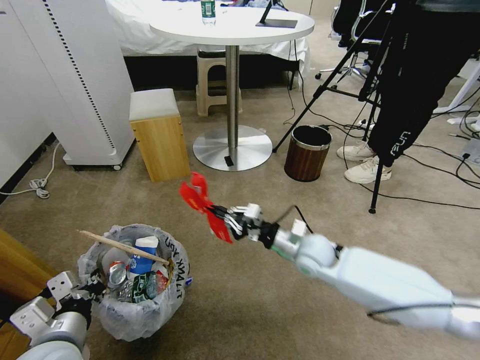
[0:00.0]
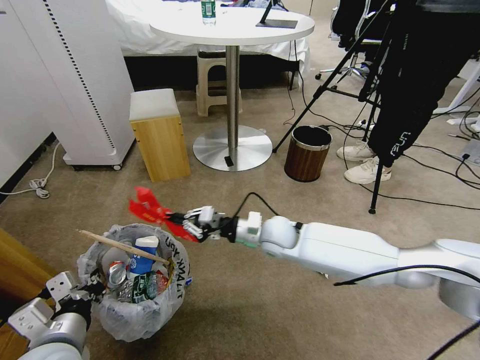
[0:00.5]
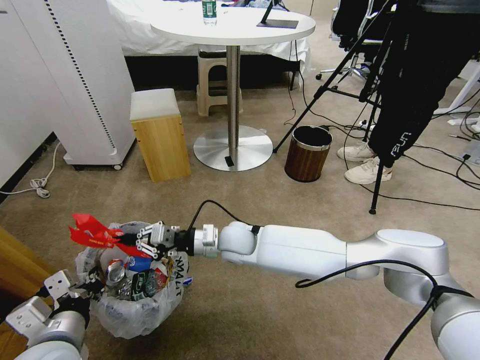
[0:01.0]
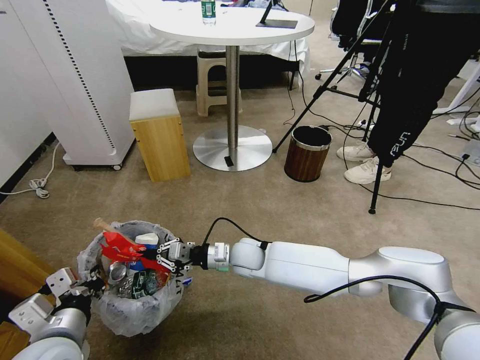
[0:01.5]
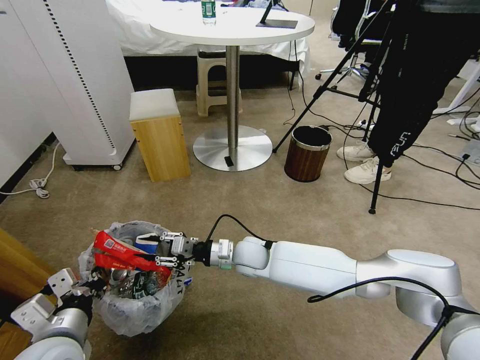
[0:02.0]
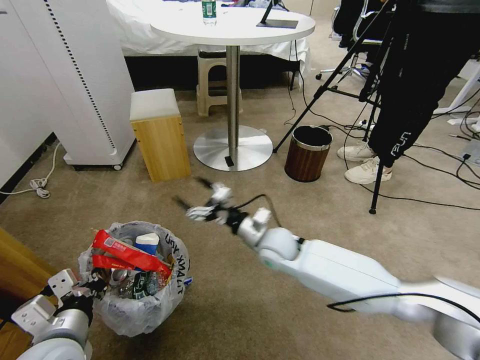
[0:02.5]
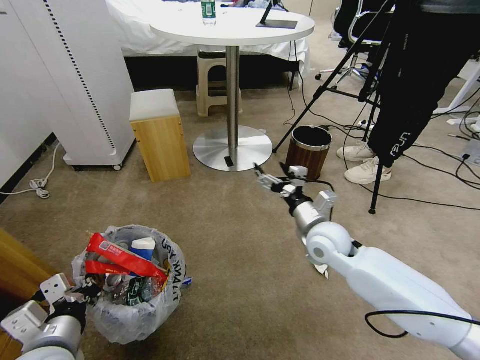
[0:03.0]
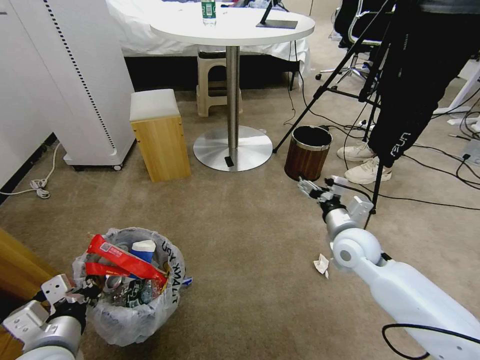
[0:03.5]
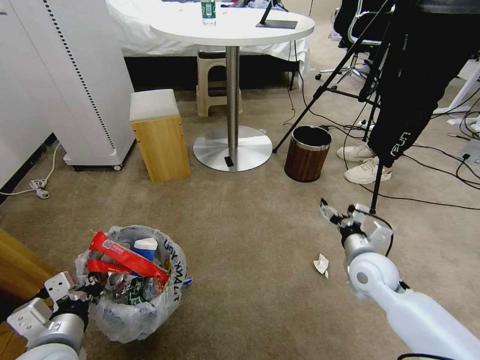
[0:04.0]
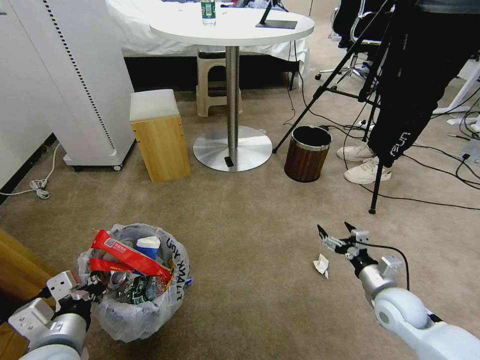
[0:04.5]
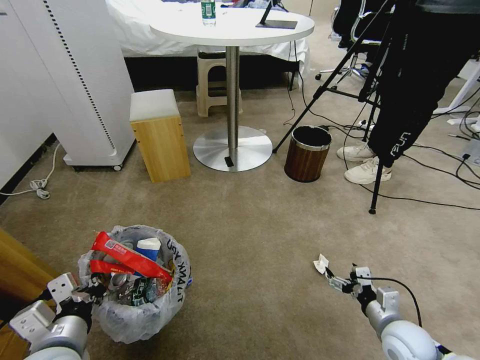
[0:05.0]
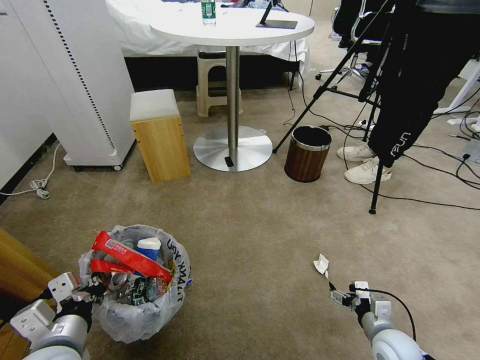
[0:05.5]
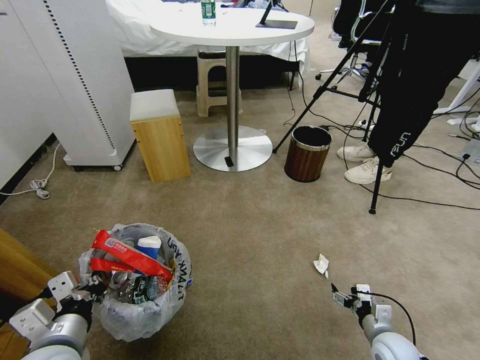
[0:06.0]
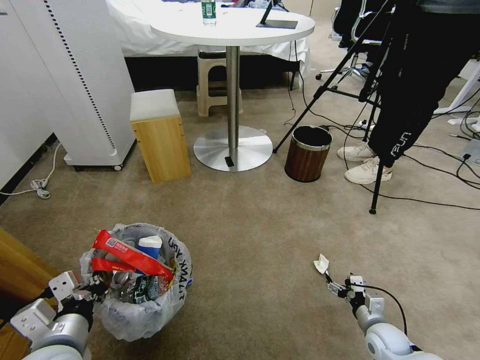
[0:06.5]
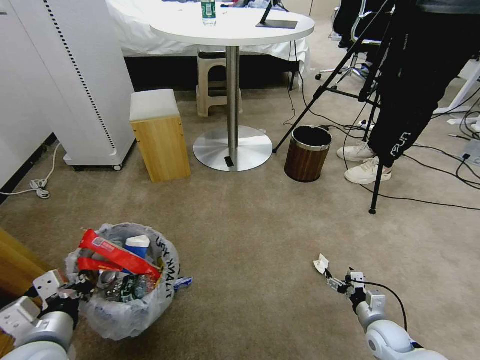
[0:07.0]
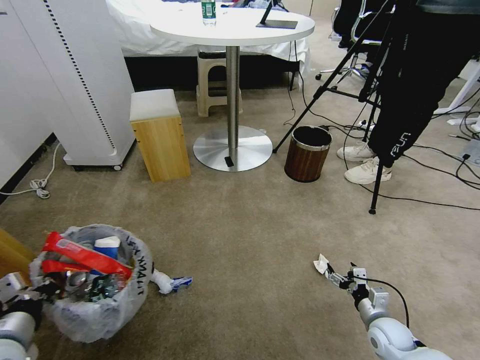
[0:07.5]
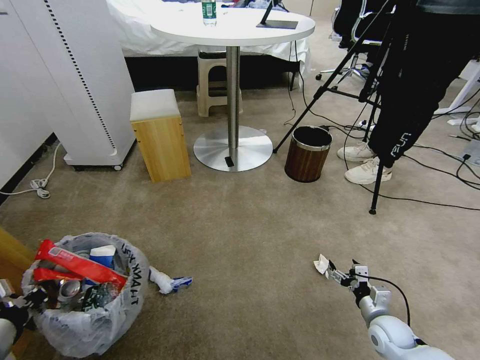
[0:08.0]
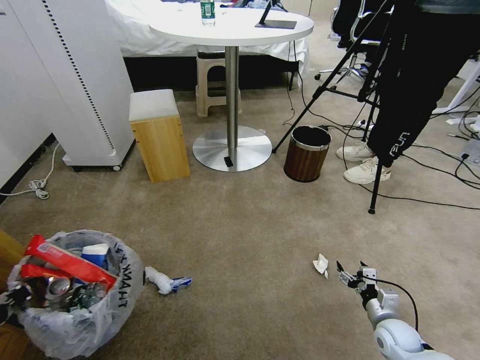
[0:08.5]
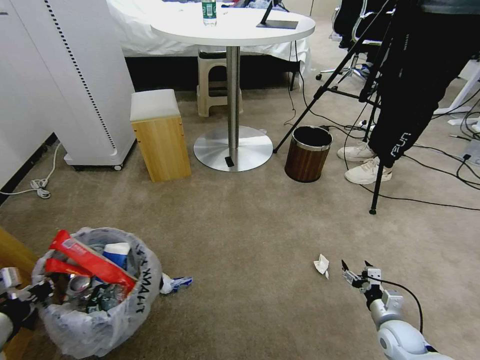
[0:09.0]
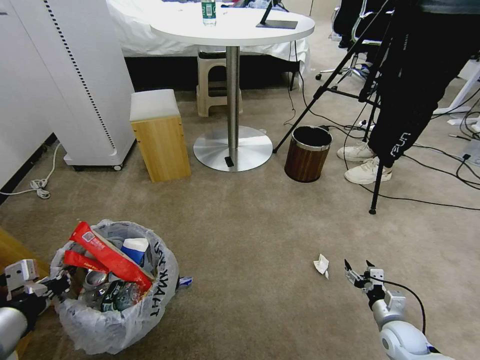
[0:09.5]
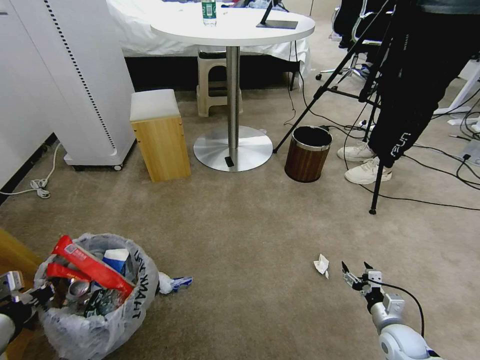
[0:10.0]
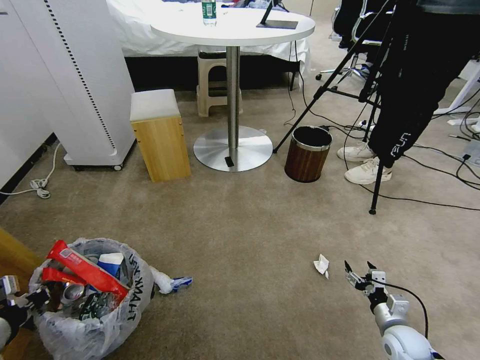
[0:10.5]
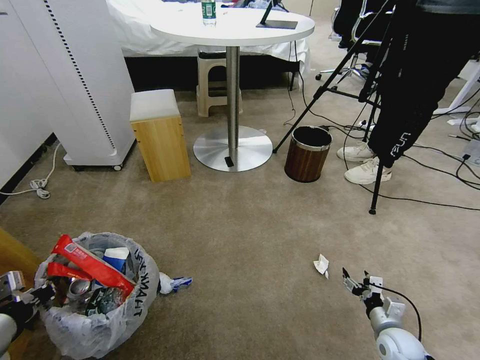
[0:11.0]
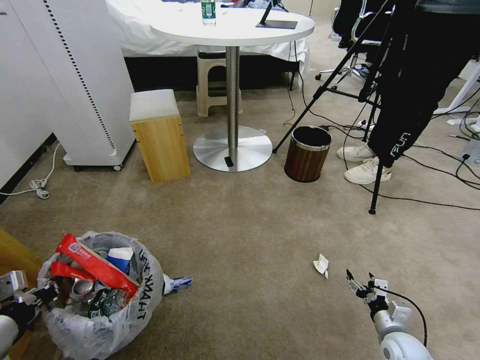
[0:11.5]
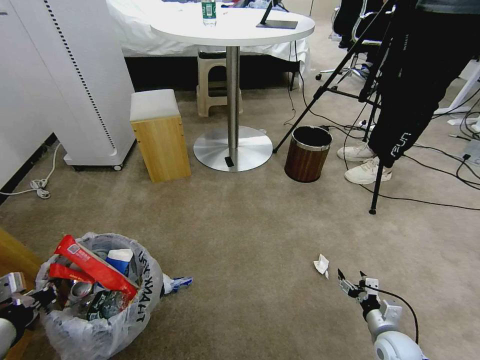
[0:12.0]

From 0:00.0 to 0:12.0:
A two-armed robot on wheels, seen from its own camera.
Task of the whole recording: Pick up the trash bin and place the garbage on the floor into it.
From 0:00.0 to 0:02.0: The right gripper heads to the left, covering some 15 cm, and opens.
From 0:02.0 to 0:04.0: The right gripper shifts some 25 cm to the right, and opens.
From 0:04.0 to 0:06.0: The right gripper shifts some 25 cm downward, backward and to the right.
From 0:06.0 to 0:08.0: The left gripper goes approximately 10 cm to the left.
From 0:08.0 to 0:12.0: The grippers stay close to where they were, moving slightly.

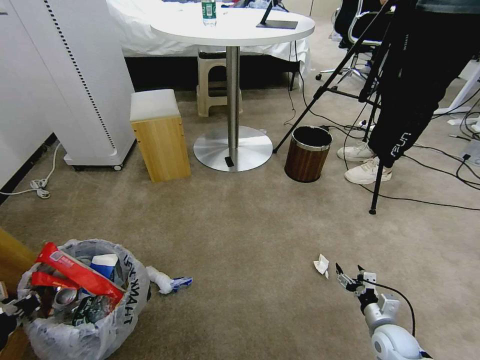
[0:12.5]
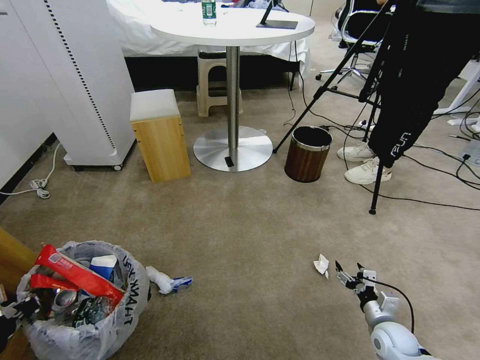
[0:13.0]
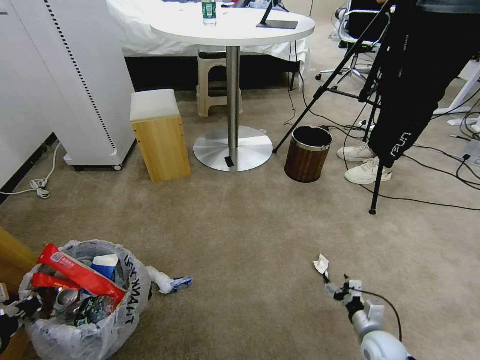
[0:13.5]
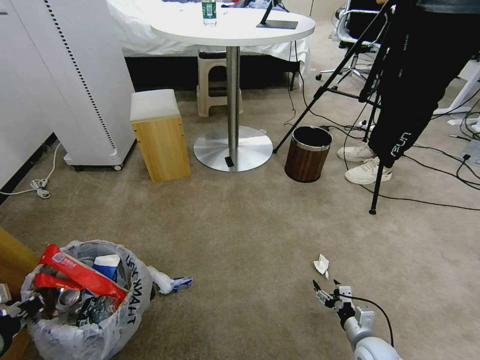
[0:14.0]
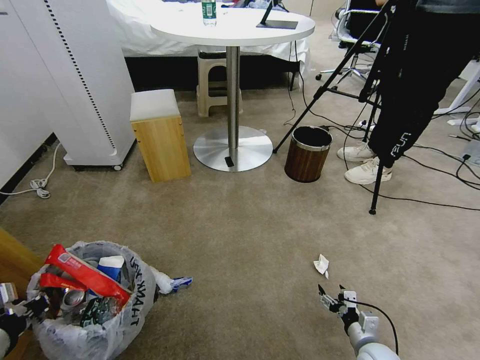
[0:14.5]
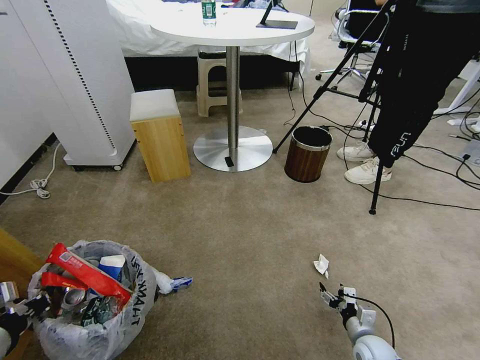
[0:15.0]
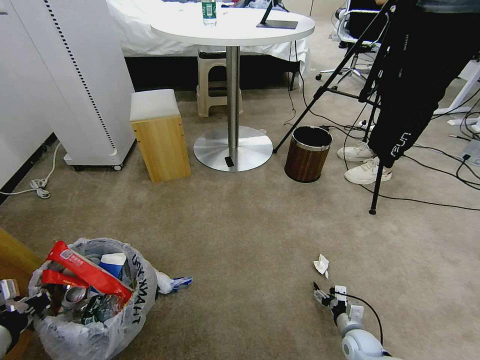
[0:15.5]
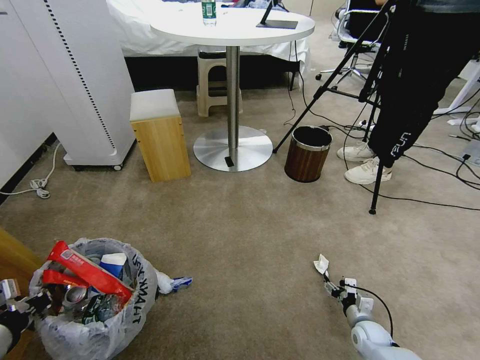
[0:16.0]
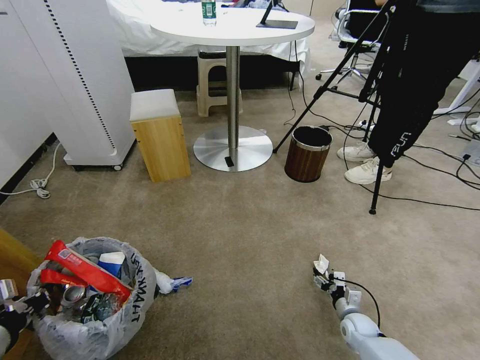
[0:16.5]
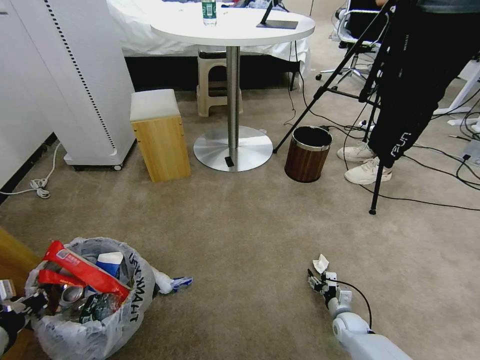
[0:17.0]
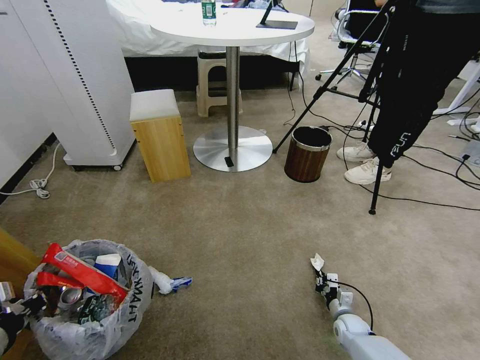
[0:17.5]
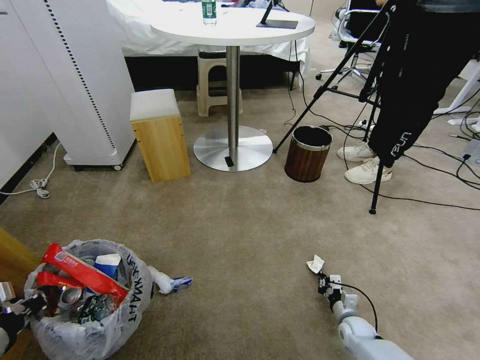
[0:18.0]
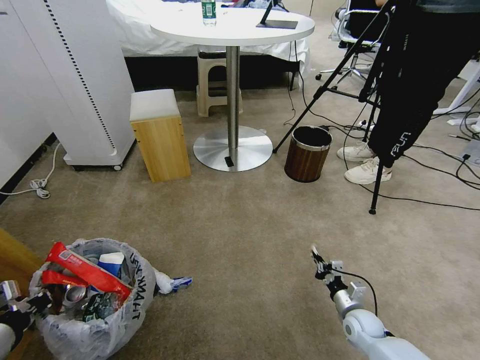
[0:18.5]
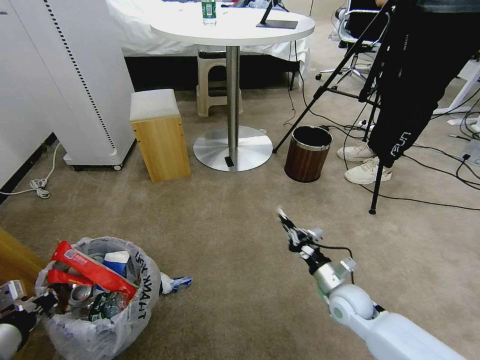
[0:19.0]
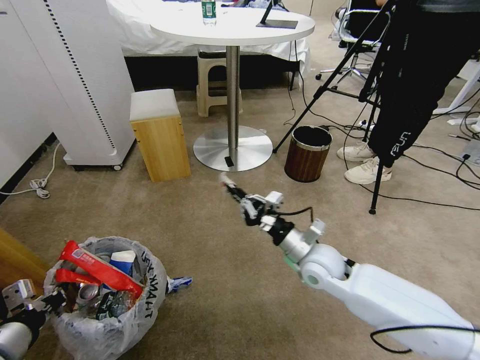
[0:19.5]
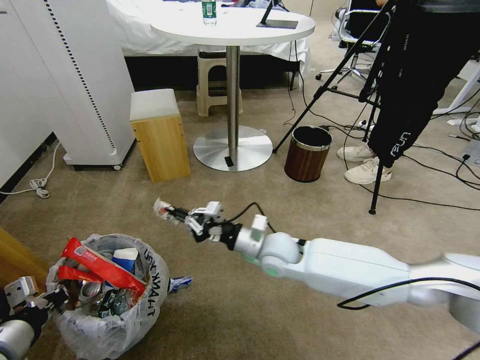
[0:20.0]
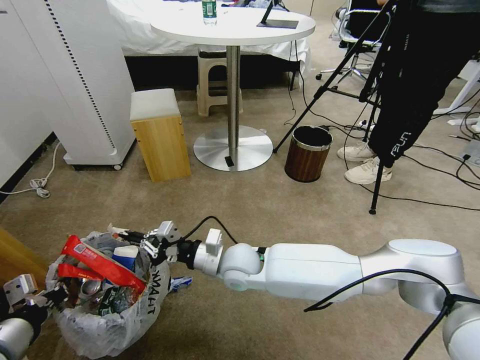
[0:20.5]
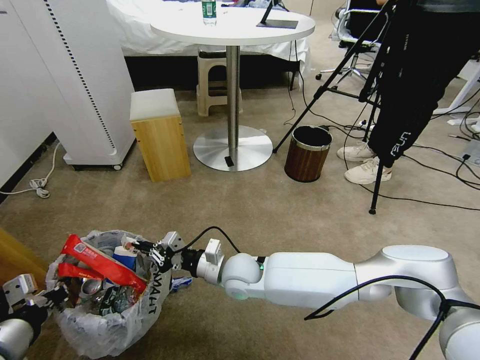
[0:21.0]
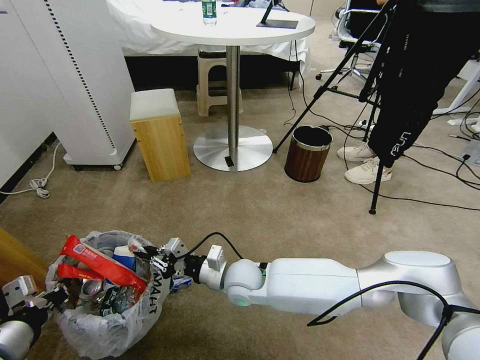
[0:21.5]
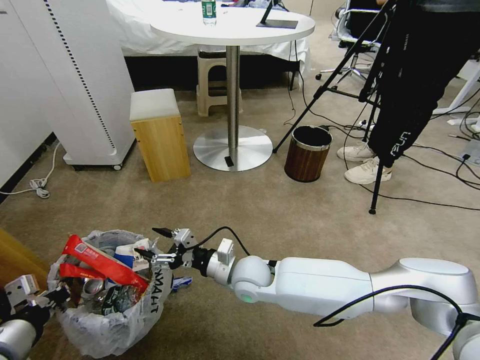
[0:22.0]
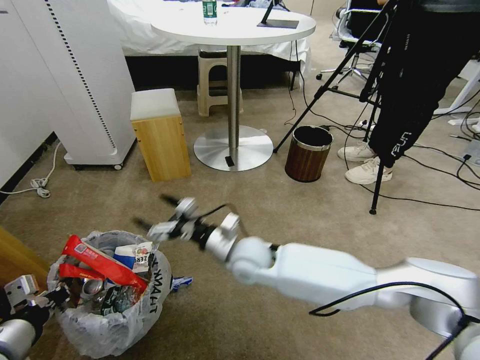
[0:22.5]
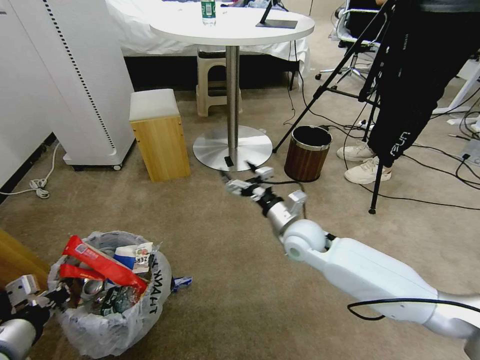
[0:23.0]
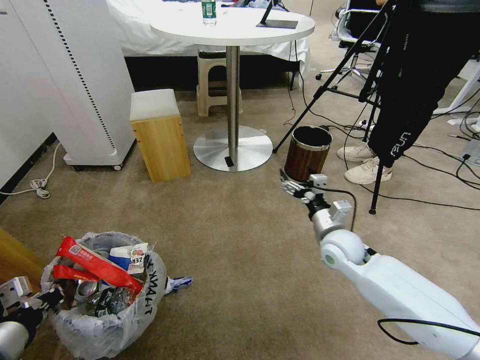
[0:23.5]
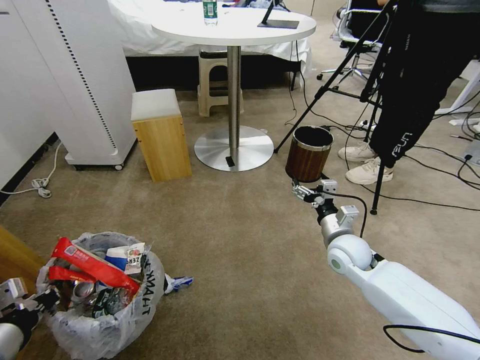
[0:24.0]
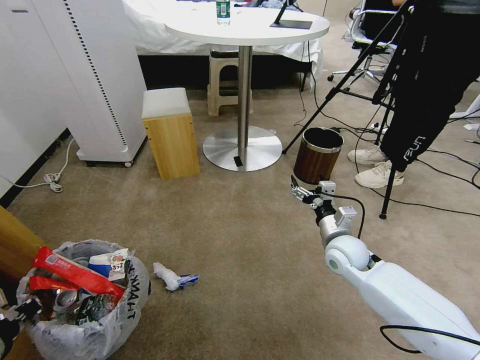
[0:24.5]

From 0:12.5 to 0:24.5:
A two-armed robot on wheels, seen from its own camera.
Task of the whole recording: Pick up the trash bin and place the garbage on the floor into it.
From 0:12.5 to 0:14.5: The right gripper shifts by roughly 5 cm.
From 0:14.5 to 0:16.5: The right gripper is displaced forward by roughly 10 cm.
From 0:16.5 to 0:18.5: The right gripper shifts approximately 5 cm upward, and closes up.
From 0:18.5 to 0:20.5: The right gripper shifts approximately 40 cm to the left and upward.
From 0:20.5 to 0:22.5: The right gripper opens its fingers.
From 0:22.5 to 0:24.5: The right gripper moves to the right, about 25 cm.

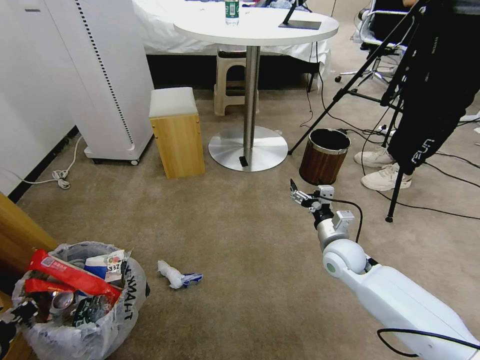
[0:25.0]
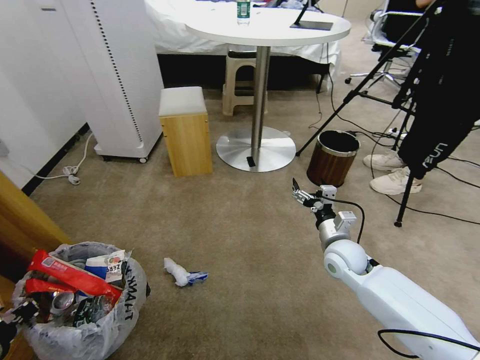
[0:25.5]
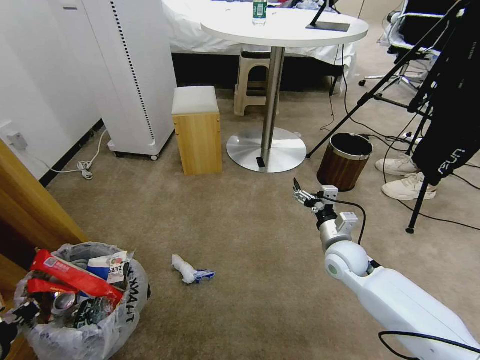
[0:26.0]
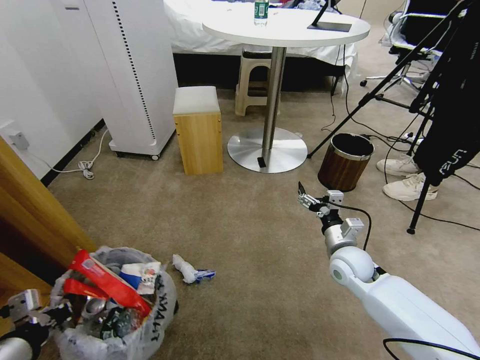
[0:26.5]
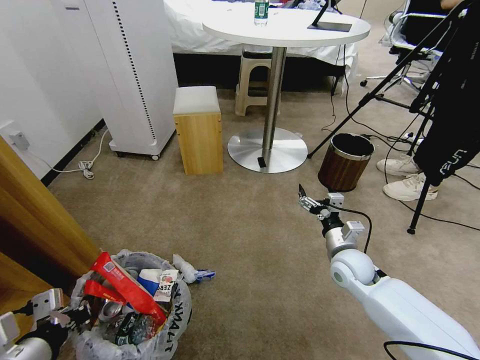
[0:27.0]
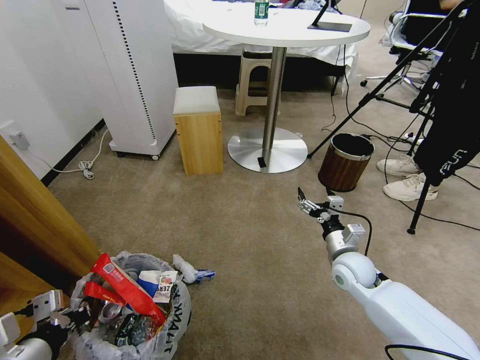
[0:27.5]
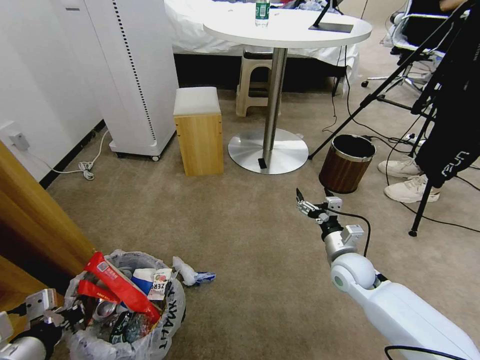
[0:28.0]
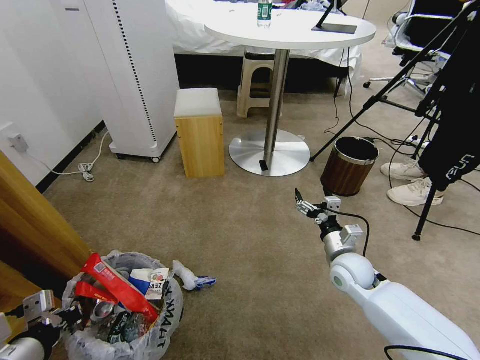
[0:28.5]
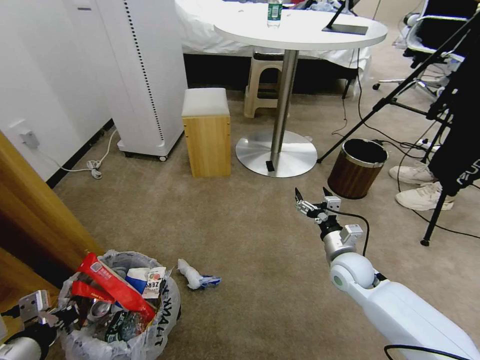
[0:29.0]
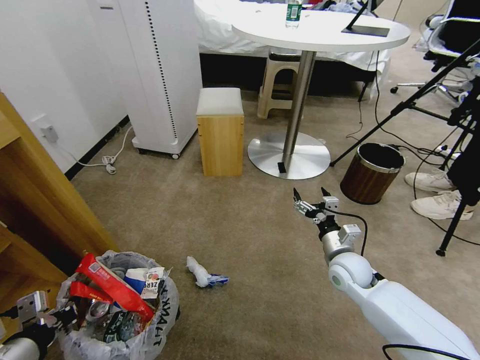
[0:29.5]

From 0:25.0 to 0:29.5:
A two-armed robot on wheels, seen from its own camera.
Task of the whole recording: Pick up the trash bin and place the garbage on the floor into it.
From 0:25.0 to 0:27.0: The left gripper moves to the right, roughly 5 cm.
